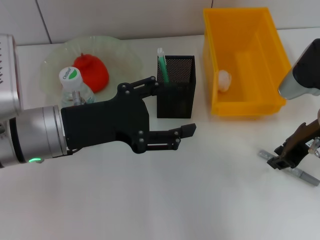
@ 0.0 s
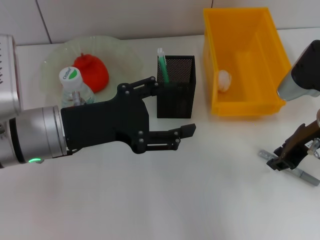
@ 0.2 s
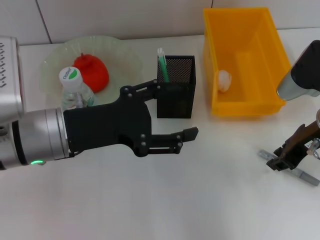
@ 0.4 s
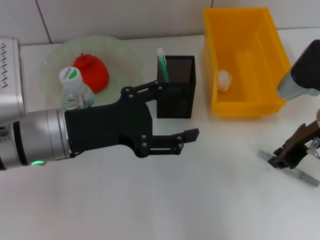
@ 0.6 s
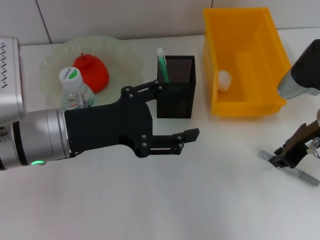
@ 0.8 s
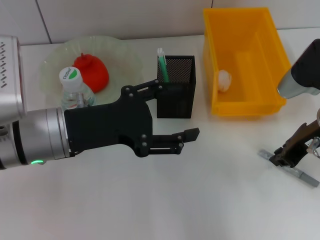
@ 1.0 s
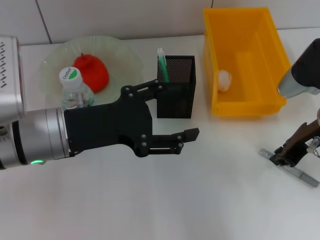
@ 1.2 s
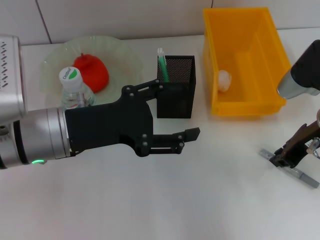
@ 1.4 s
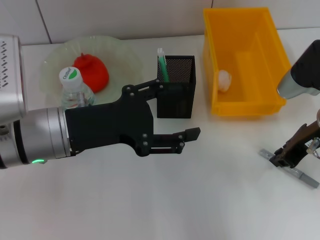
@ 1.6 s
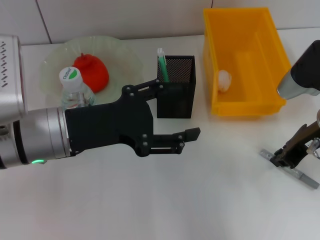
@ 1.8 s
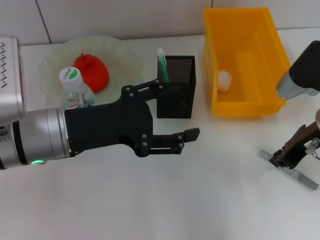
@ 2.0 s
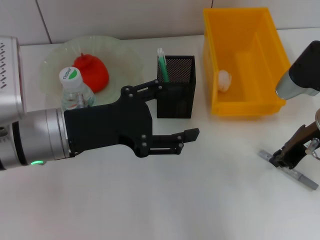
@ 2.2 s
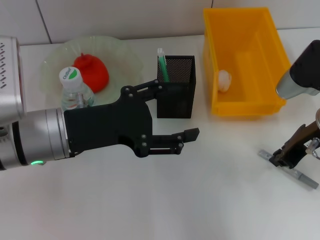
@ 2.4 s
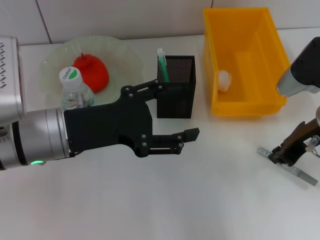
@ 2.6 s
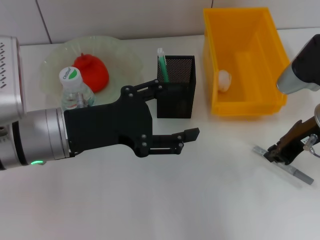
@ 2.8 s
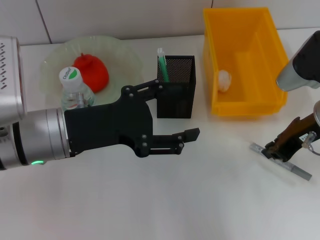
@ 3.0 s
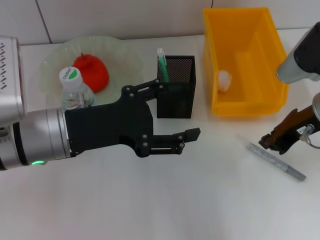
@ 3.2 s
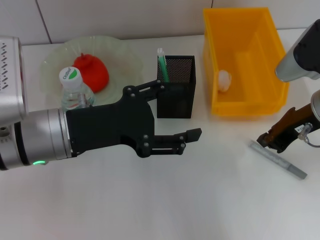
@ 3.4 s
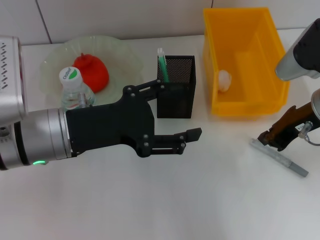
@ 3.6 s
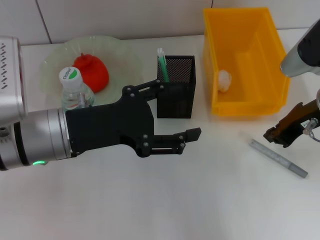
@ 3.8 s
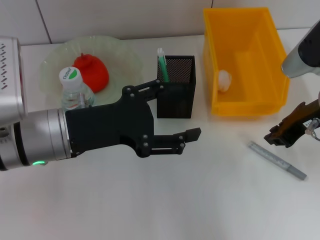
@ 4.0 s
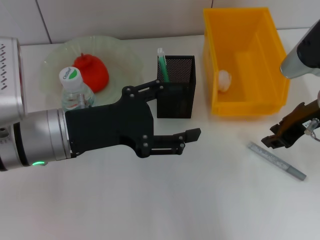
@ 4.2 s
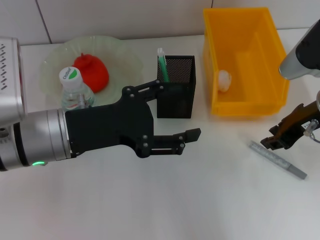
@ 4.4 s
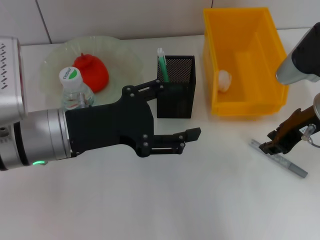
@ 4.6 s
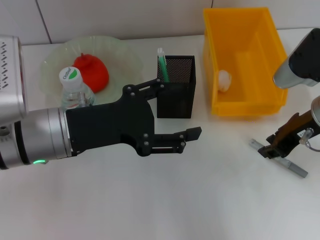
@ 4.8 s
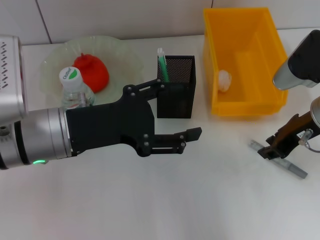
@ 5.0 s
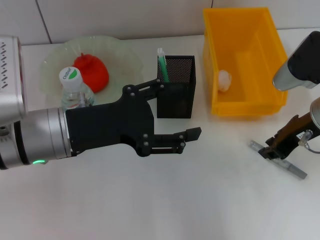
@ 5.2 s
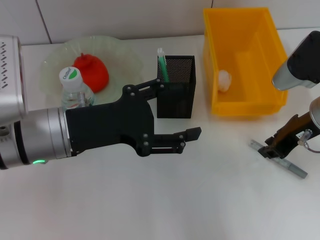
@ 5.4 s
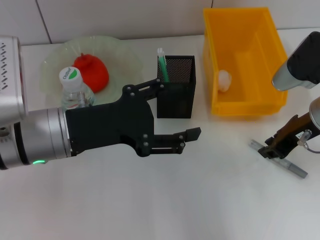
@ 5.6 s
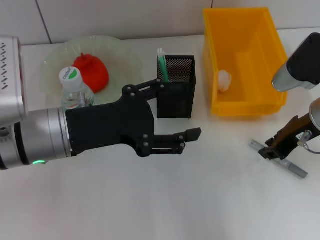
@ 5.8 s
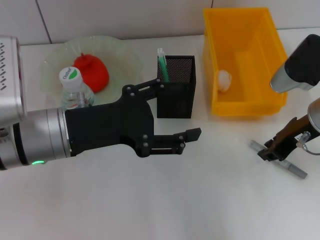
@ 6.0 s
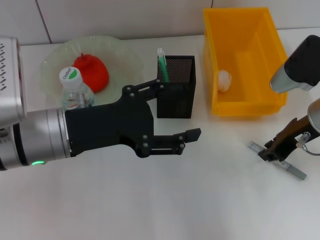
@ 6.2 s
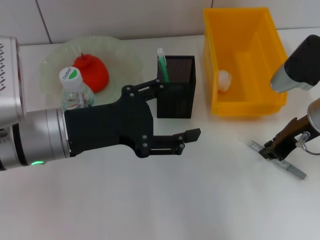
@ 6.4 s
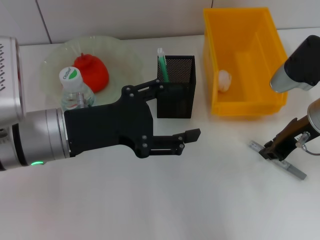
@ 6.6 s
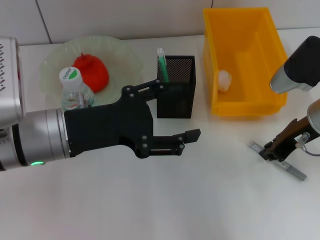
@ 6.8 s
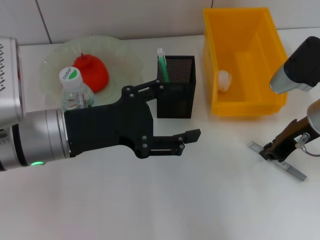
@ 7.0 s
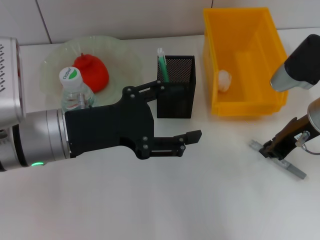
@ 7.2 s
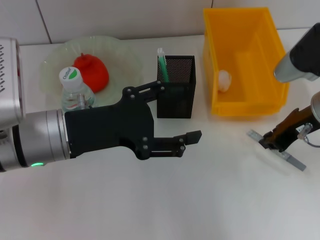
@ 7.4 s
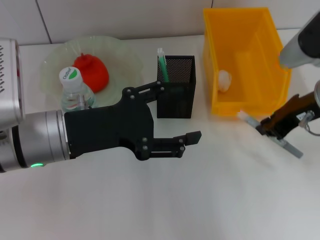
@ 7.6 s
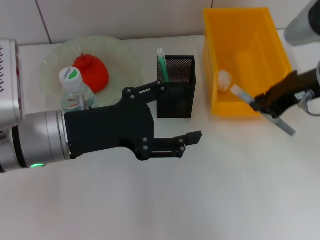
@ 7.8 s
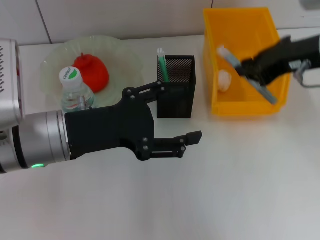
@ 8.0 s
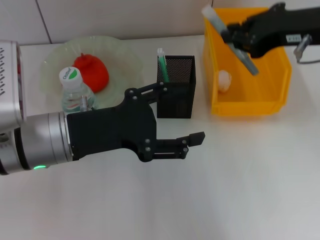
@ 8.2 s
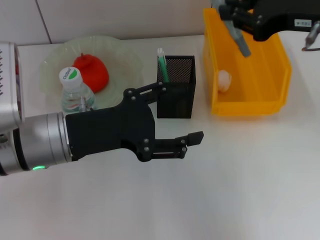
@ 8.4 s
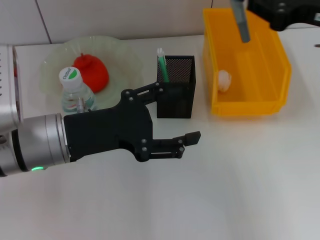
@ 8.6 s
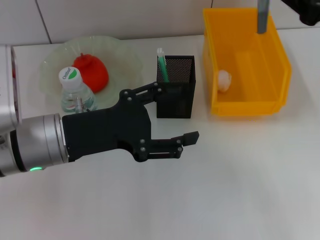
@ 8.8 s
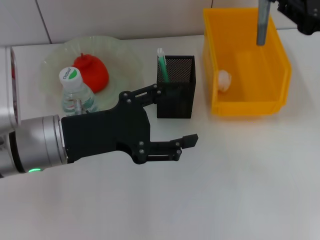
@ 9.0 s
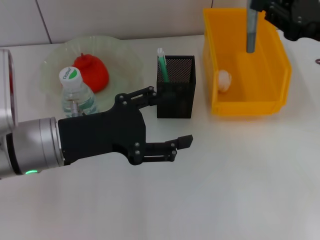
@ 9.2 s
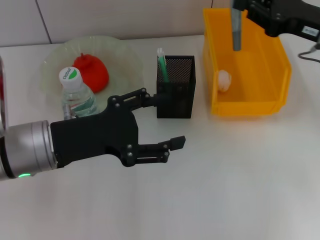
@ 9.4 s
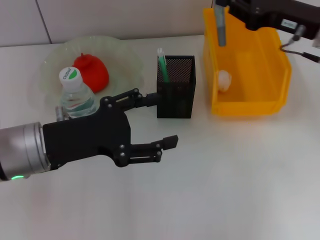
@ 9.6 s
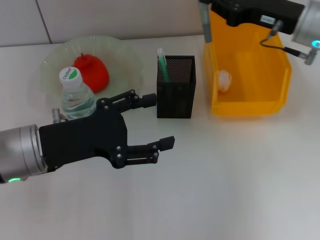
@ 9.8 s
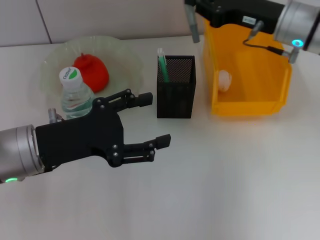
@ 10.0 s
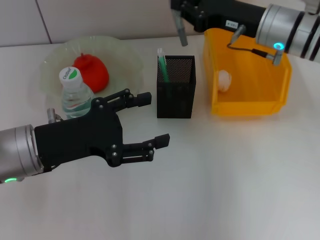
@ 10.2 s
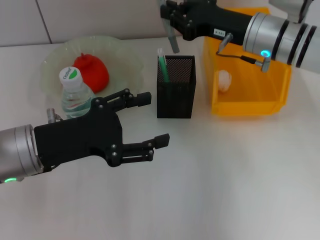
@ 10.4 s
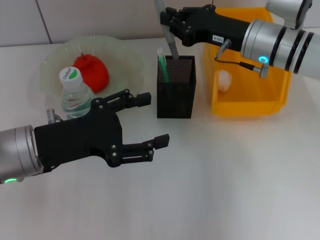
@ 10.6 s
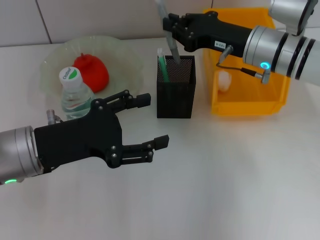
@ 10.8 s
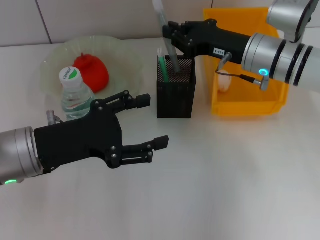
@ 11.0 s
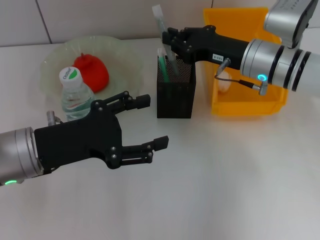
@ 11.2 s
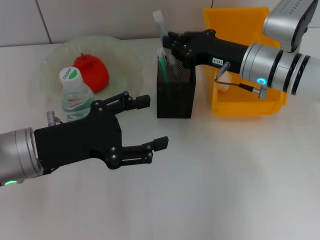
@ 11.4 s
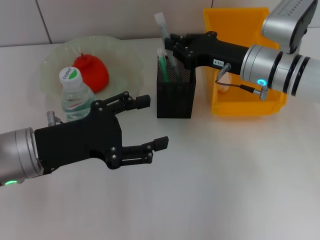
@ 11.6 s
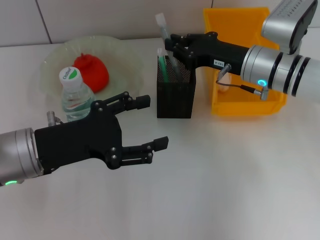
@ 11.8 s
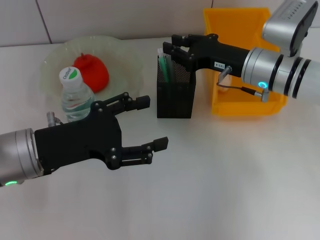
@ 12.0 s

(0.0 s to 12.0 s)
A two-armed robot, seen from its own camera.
Step, 0.0 s - 6.4 s: Grab the gray glue with the right hand.
0.0 s - 3.0 s: The two grippers keep their place.
3.0 s - 7.6 s: The grippers move only a little.
7.6 s - 9.0 s: The right gripper shifts some 5 cm to the right.
9.0 s - 10.4 s: The right gripper is displaced to the left and forward by roughly 15 cm.
10.4 s - 12.0 s: The grippers move only a little.

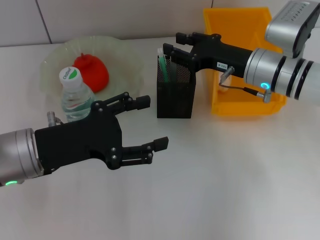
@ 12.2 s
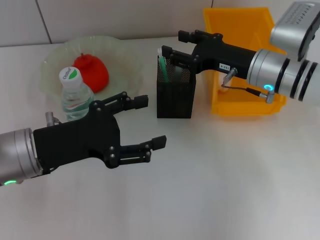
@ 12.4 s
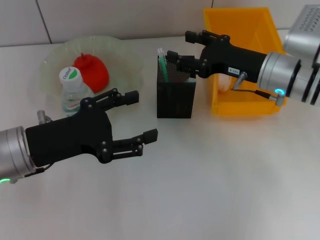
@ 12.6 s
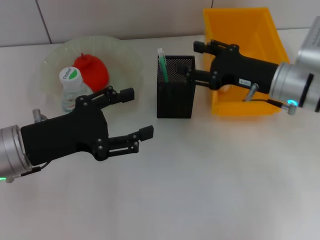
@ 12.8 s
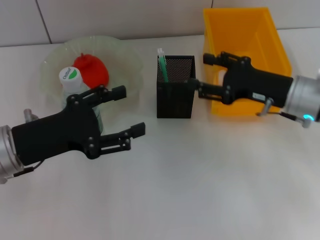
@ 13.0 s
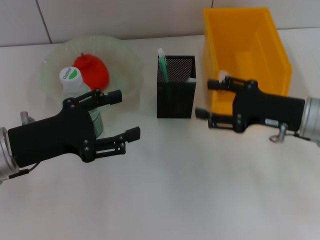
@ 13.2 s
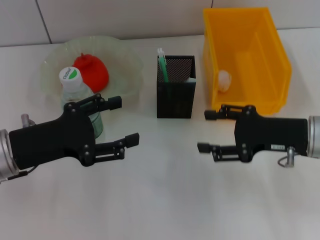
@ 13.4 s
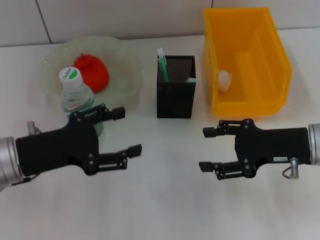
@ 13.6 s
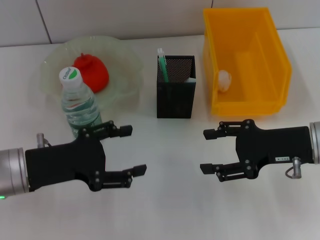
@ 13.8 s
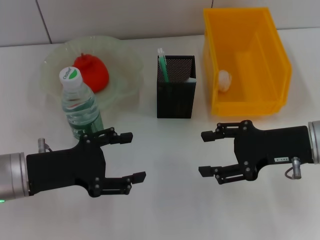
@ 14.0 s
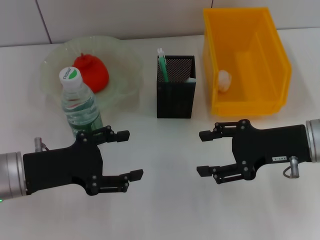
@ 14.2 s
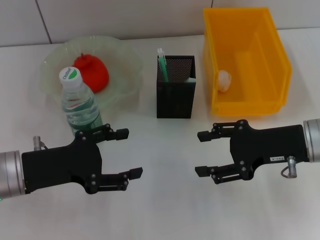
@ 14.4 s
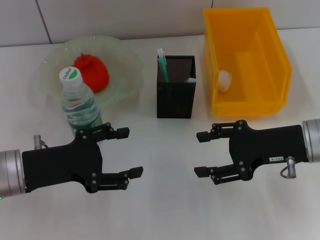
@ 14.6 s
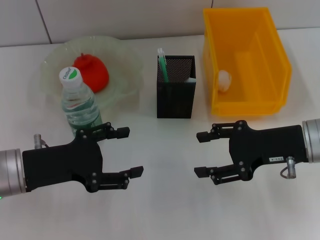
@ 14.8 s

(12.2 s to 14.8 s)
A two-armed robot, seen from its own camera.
12.2 s - 13.4 s: The right gripper is displaced backward and to the right by approximately 10 cm, and opens.
13.4 s - 14.8 s: The grippers move only a little.
